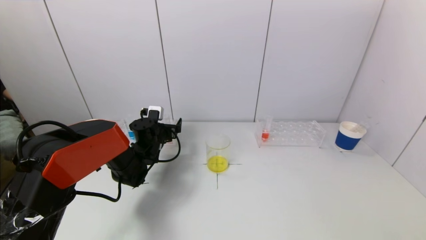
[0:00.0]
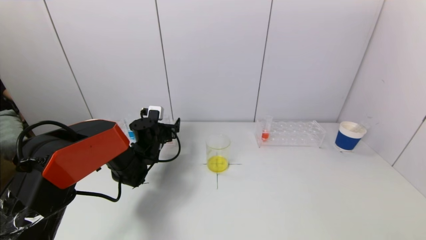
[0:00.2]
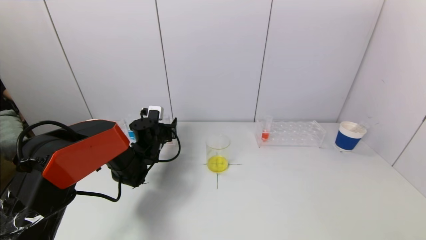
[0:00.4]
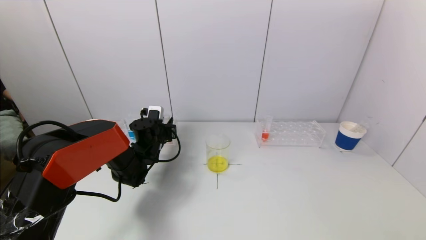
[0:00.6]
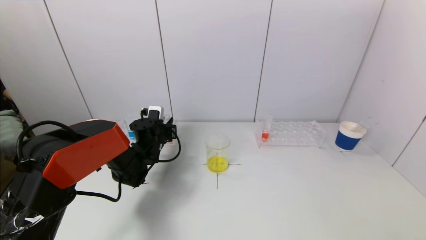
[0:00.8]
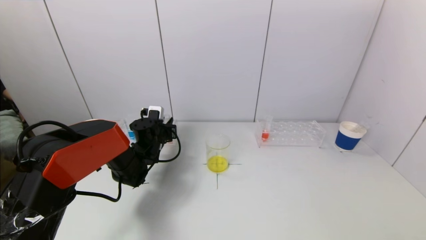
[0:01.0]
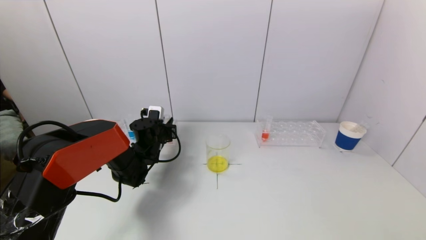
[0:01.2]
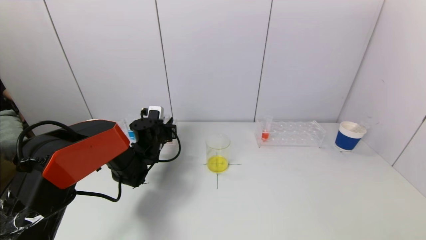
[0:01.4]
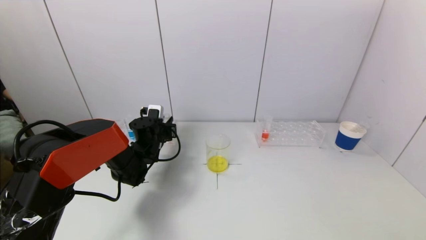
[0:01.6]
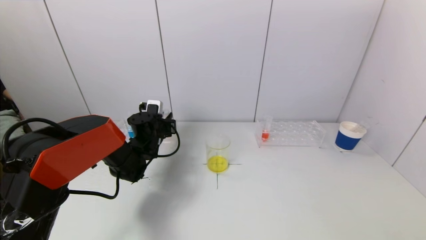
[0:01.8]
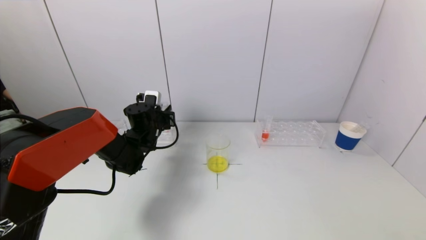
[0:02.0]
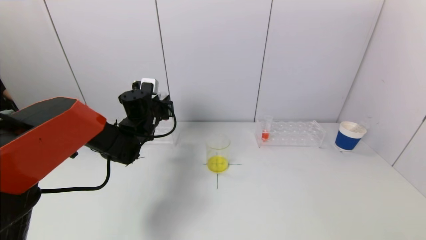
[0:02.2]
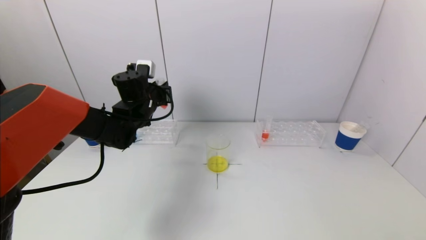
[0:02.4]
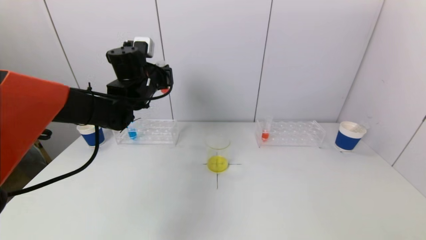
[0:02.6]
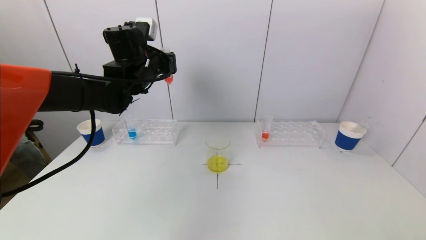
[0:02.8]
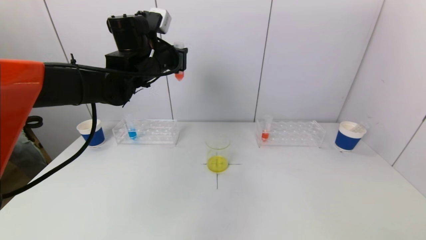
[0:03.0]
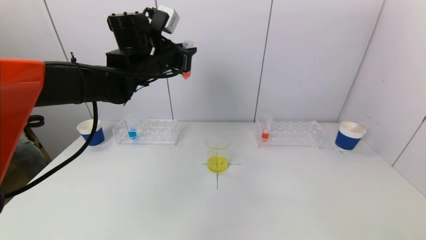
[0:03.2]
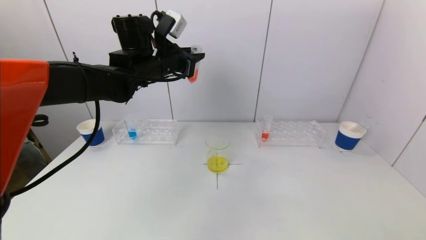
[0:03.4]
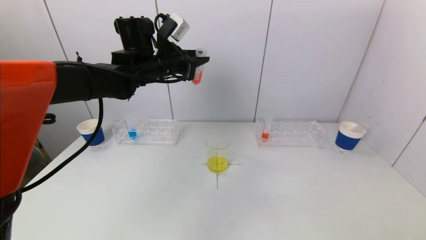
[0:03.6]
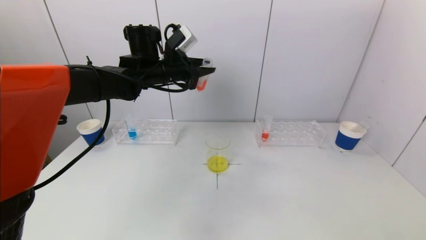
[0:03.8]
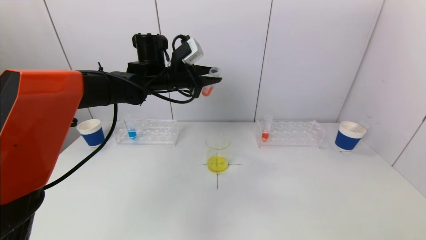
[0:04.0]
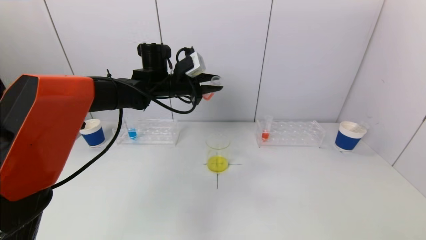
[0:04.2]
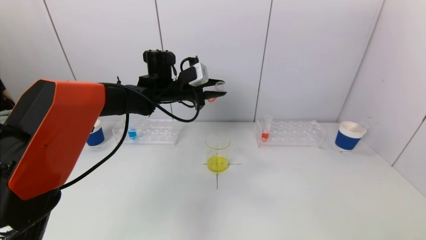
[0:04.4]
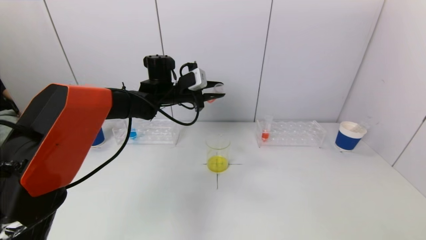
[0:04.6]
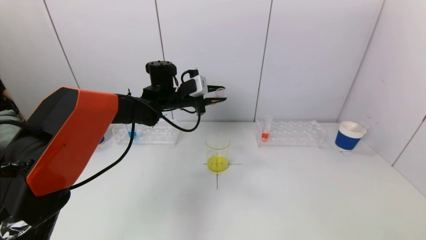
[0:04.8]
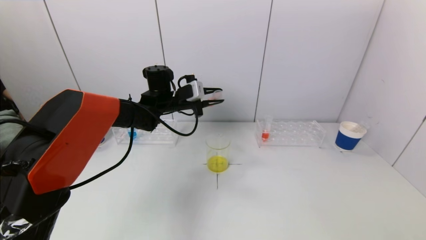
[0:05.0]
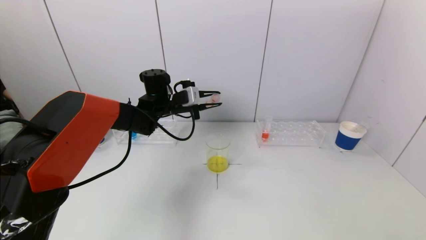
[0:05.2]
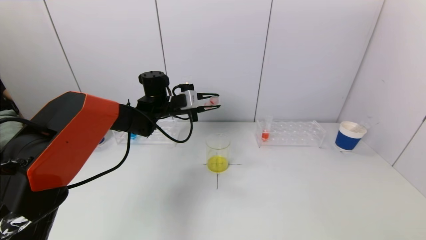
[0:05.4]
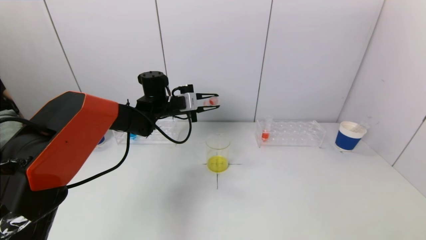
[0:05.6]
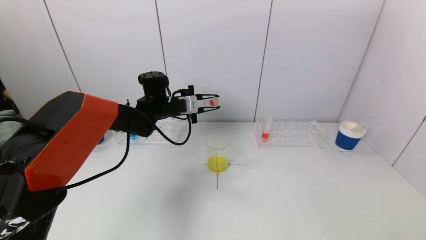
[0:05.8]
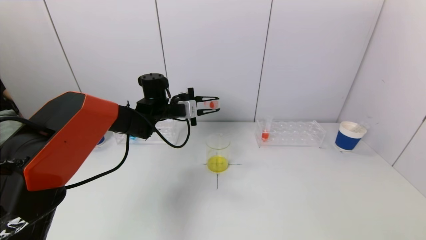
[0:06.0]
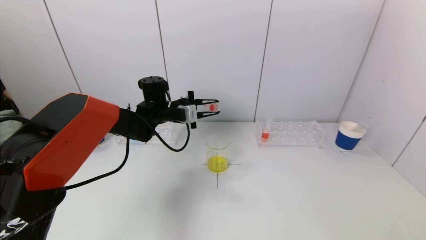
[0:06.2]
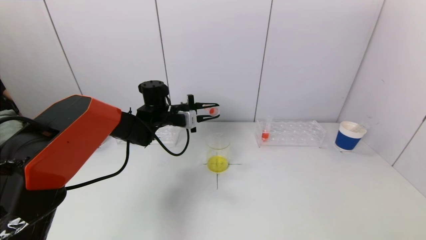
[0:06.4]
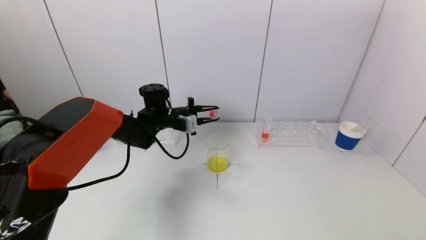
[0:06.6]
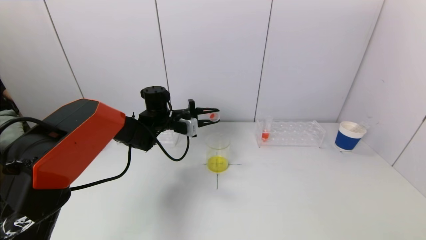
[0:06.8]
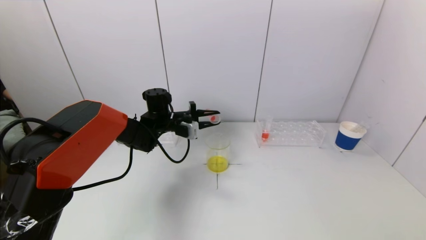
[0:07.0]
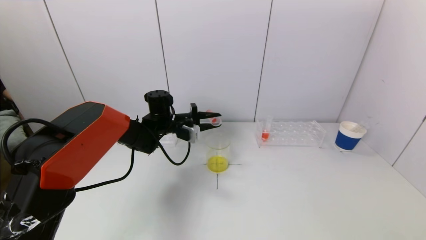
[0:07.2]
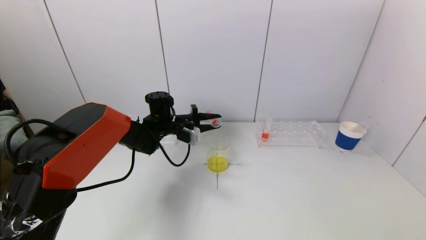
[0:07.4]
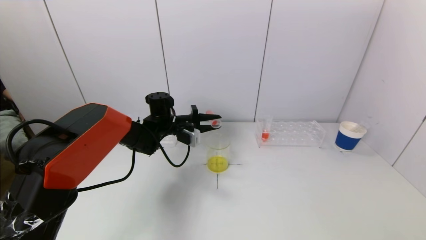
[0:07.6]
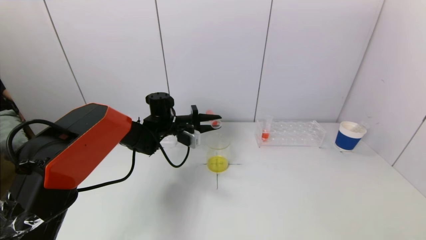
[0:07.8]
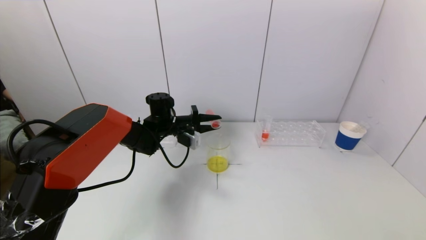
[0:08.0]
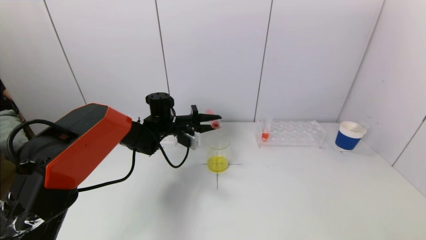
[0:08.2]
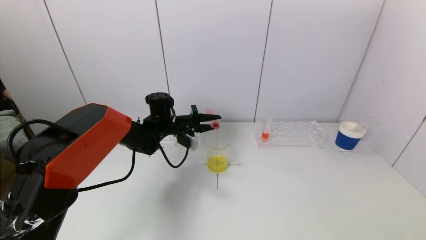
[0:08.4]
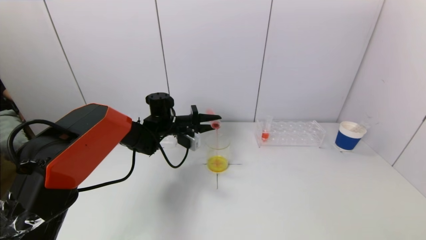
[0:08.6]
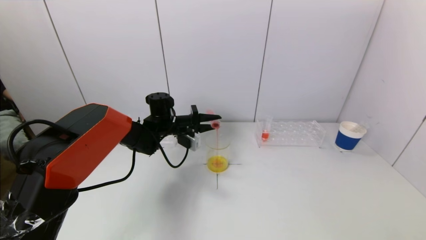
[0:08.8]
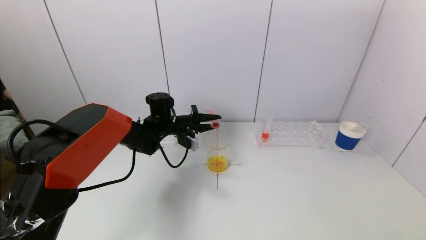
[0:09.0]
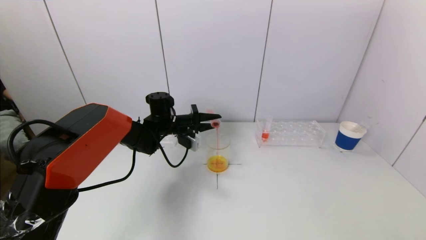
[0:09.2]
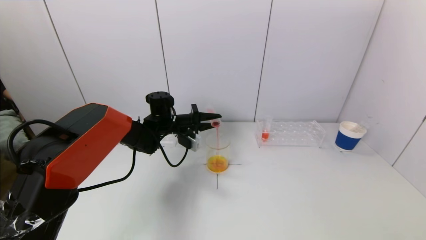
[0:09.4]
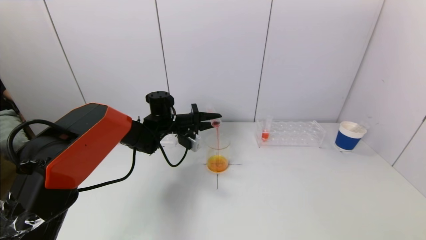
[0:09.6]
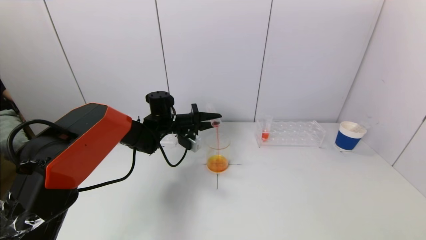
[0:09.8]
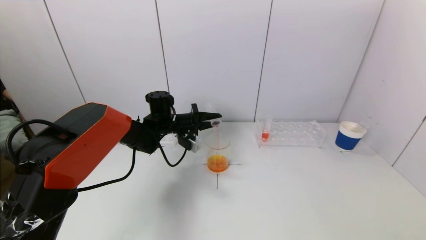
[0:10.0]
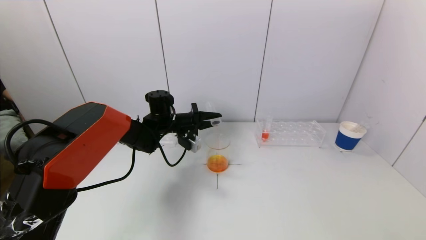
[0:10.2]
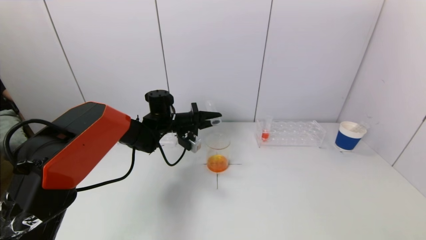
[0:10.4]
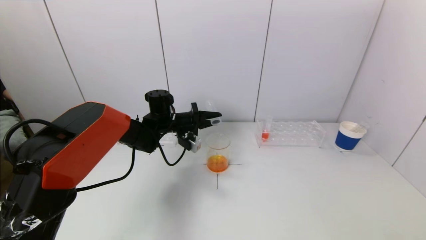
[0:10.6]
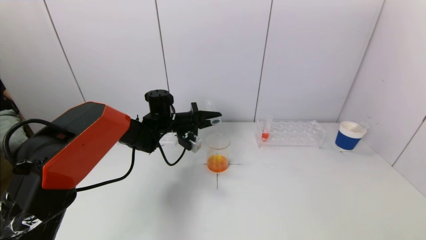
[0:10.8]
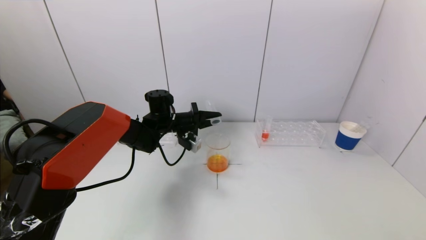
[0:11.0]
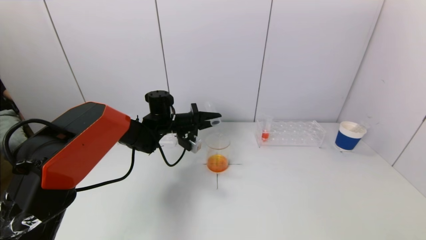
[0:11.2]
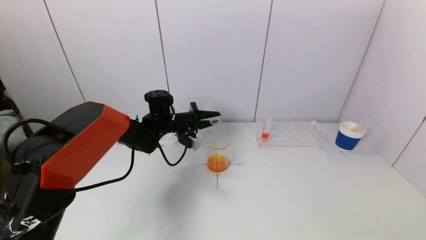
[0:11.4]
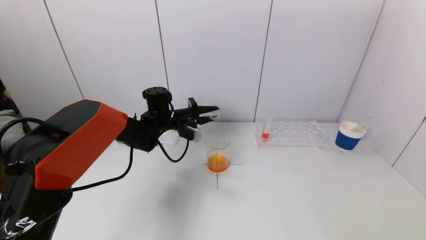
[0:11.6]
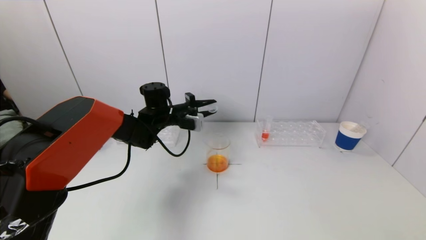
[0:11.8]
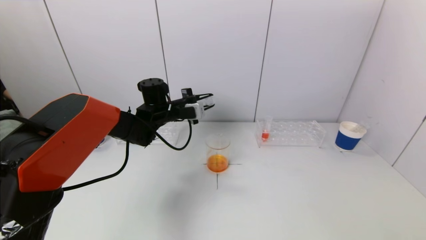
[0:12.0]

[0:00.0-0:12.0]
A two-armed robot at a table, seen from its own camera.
Task of the whole recording: pick up a test tube with pigment on left test tube rack and a test tube with pigment on right test tube rack by grippers and pour them into the beaker.
Step, 0:00.8 to 0:10.4: Pour the red reagent into the graduated cylinder with the left gripper.
0:00.0 to 0:01.6: The left gripper closes up.
0:01.6 to 0:03.0: The left gripper heads upward, covering about 25 cm.
0:03.0 to 0:04.4: The left gripper heads downward, covering about 5 cm.
0:04.4 to 0:06.0: The left gripper shifts approximately 5 cm downward.
0:06.0 to 0:07.6: The left gripper moves downward, some 5 cm.
0:07.6 to 0:09.0: The grippers stay close to where they were, moving slightly.
0:09.0 to 0:10.4: The grippers move only a little.

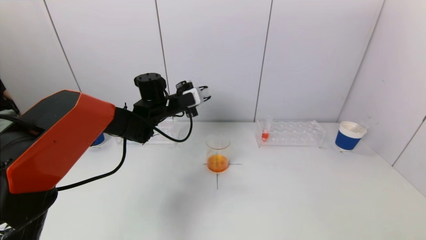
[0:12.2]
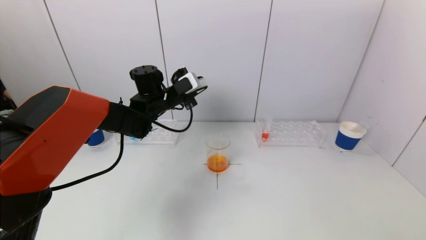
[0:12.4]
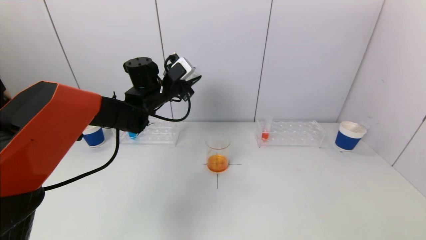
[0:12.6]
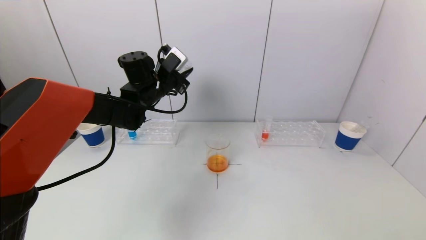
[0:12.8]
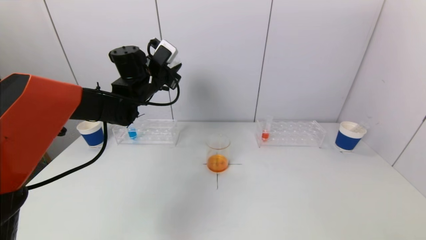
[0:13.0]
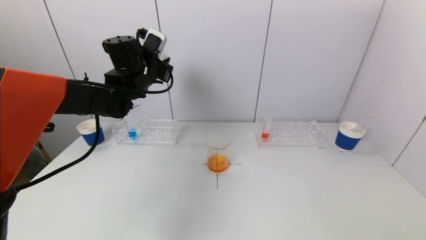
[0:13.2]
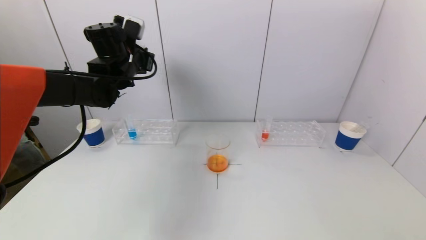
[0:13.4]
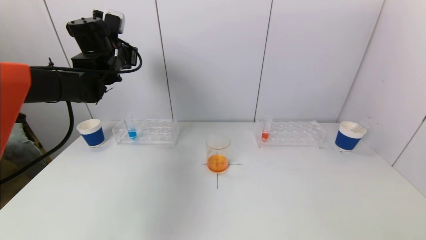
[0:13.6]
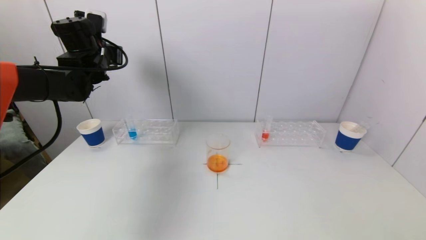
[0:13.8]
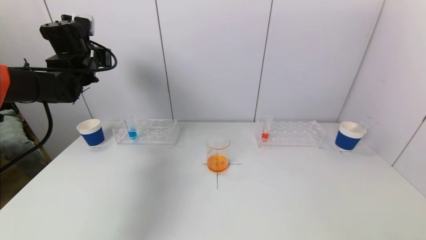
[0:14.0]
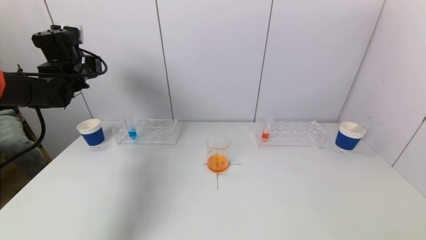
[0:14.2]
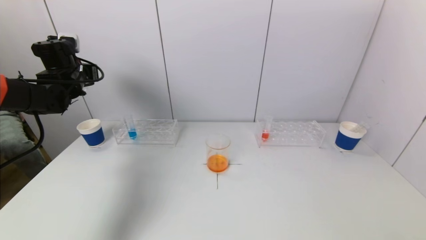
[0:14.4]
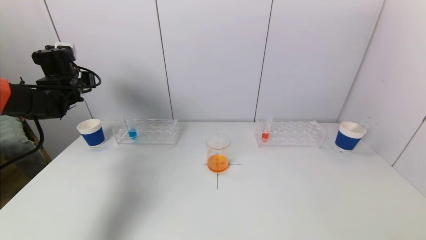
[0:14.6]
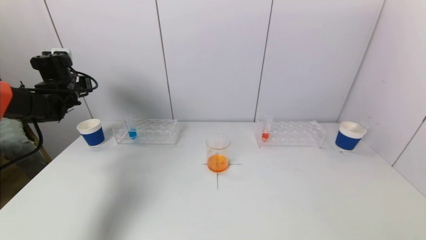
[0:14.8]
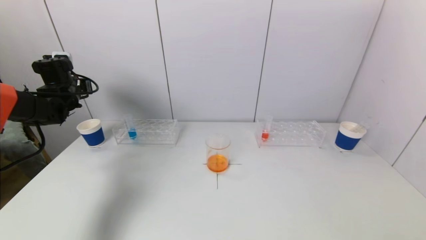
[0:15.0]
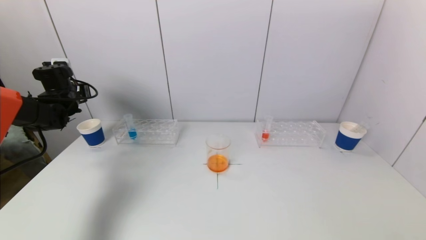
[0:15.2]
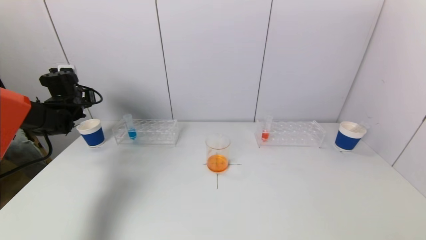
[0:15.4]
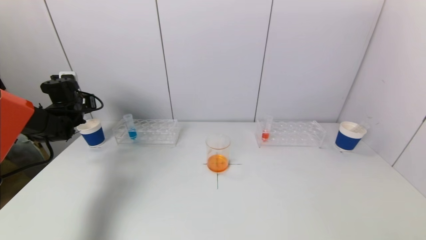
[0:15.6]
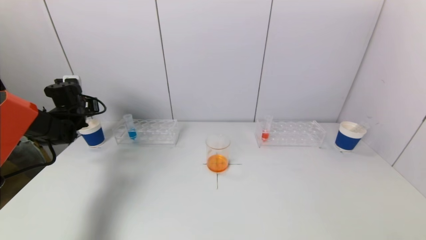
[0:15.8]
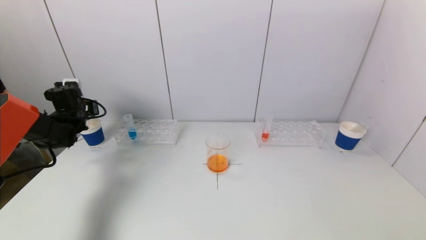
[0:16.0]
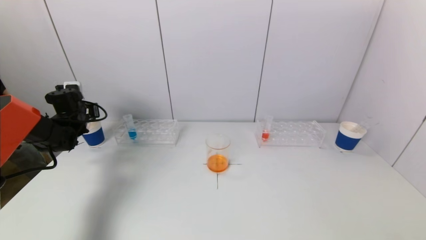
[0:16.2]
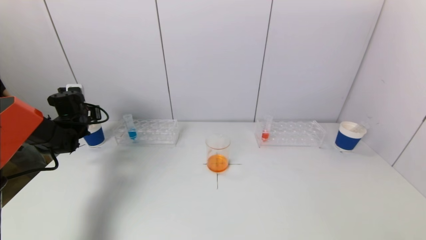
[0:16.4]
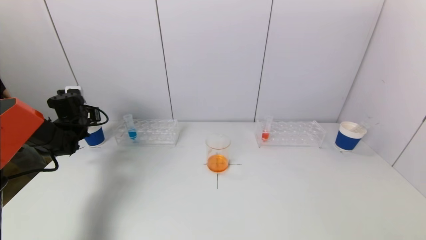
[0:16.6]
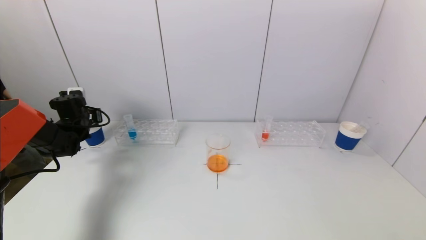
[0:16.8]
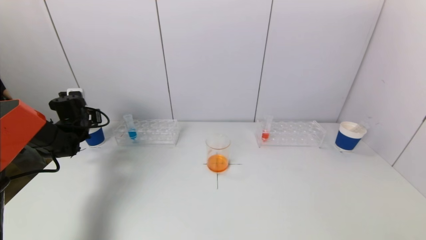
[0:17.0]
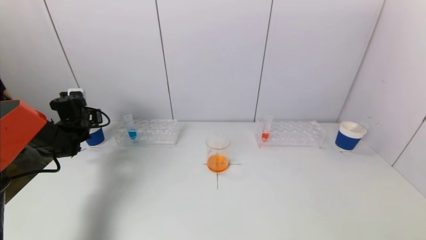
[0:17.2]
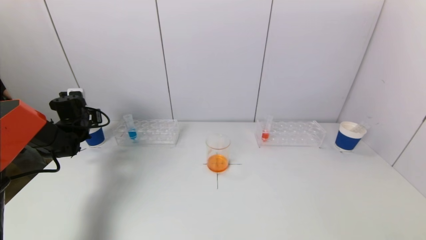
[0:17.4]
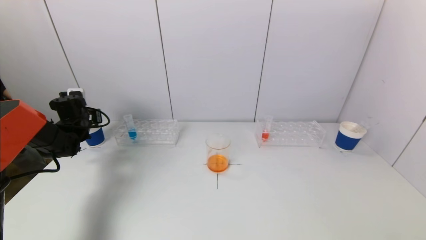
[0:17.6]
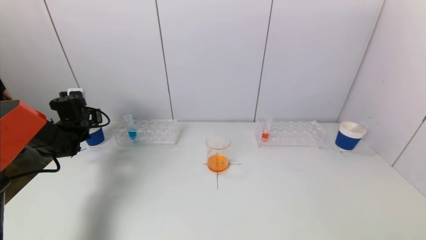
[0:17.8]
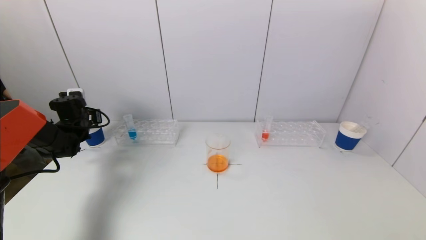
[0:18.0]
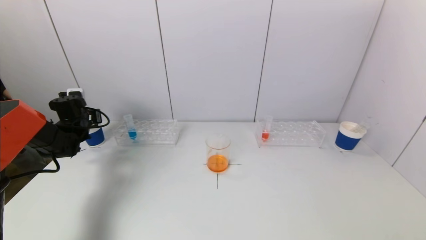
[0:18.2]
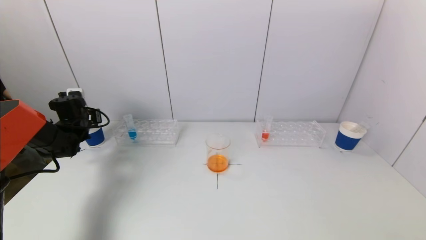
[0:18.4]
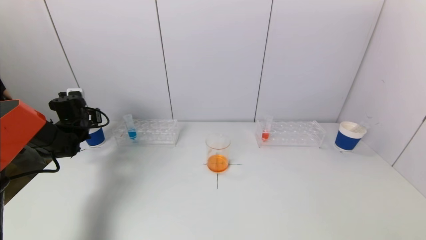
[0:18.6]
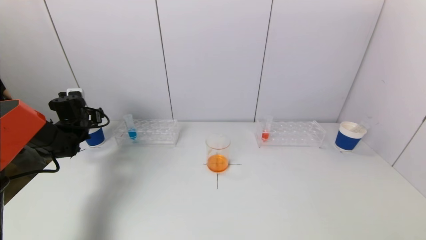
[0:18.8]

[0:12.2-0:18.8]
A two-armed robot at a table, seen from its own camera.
Task of the whole recording: pick up a test tube with pigment on left test tube rack and a test tube with pigment on right test tube rack by grippers and pour them into the beaker.
Step, 0:12.2 to 0:18.8: Place the test tube into the paper cup with the left gripper.
0:12.2 to 0:13.8: The left gripper is displaced to the left and upward by approximately 20 cm.
0:13.8 to 0:15.4: The left gripper heads downward and to the left, covering approximately 15 cm.
0:15.4 to 0:17.2: The left gripper goes roughly 5 cm downward.
